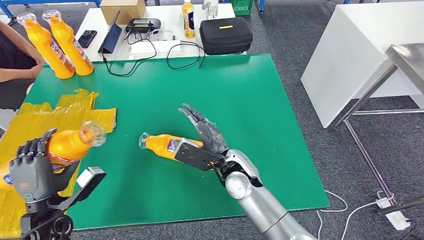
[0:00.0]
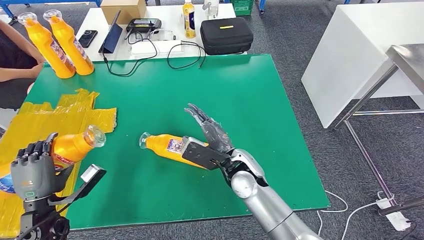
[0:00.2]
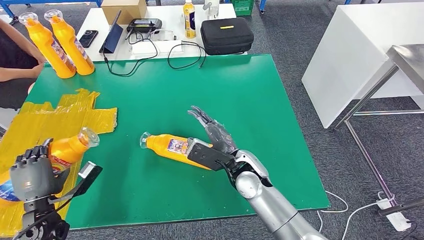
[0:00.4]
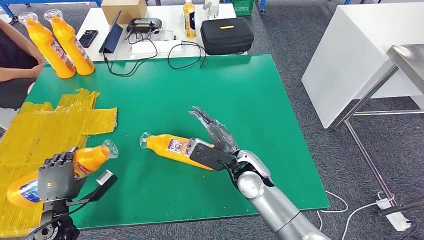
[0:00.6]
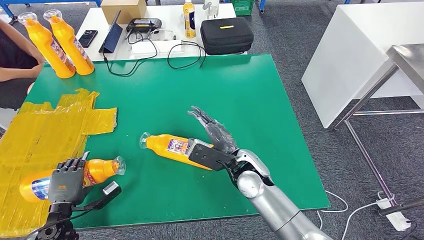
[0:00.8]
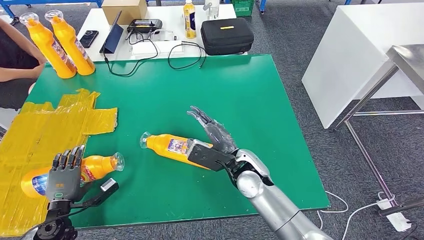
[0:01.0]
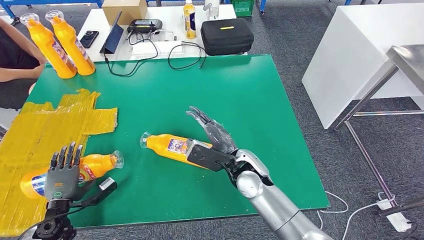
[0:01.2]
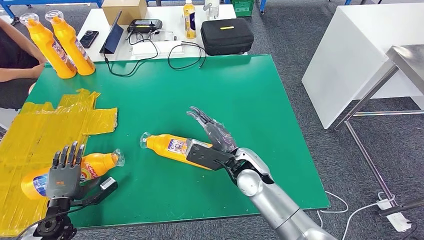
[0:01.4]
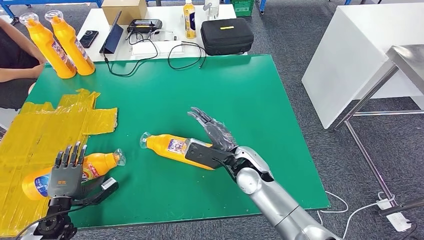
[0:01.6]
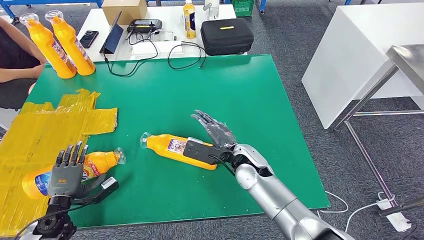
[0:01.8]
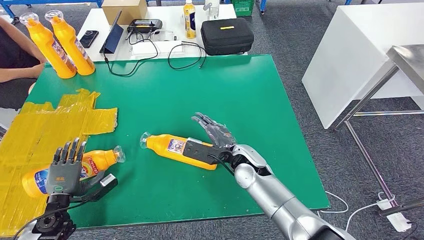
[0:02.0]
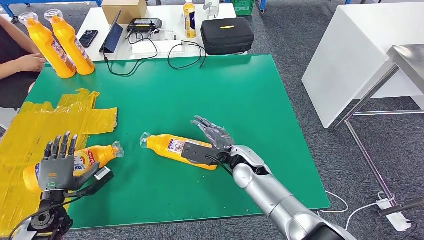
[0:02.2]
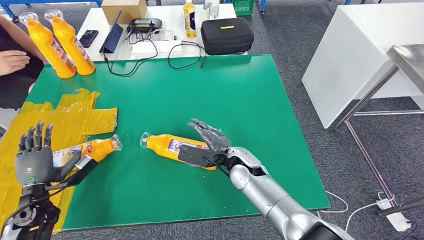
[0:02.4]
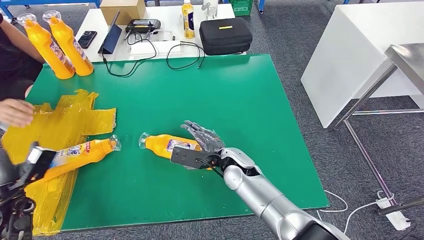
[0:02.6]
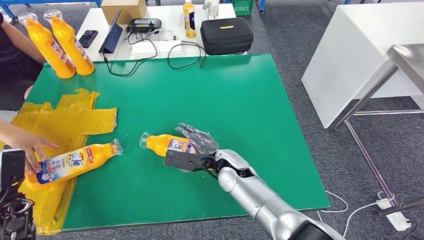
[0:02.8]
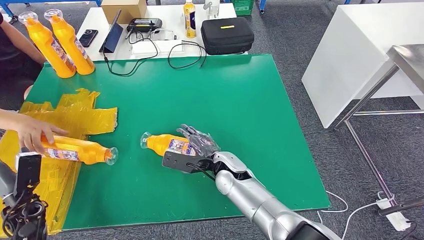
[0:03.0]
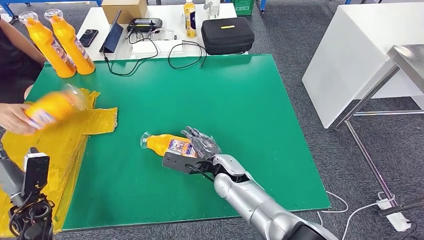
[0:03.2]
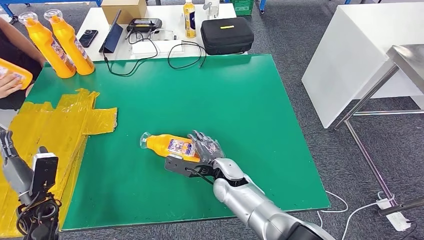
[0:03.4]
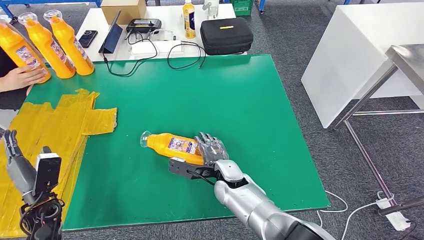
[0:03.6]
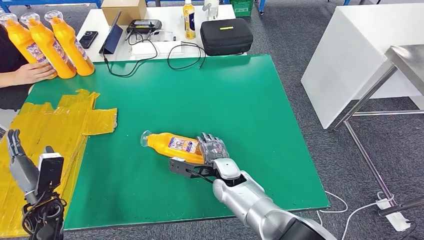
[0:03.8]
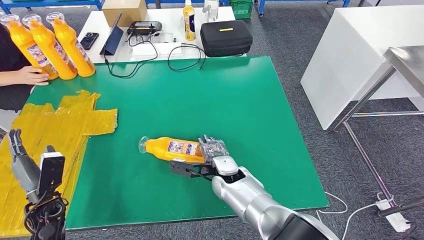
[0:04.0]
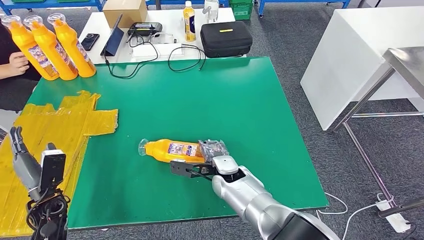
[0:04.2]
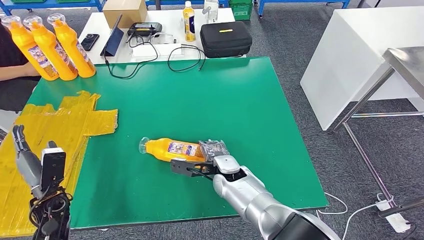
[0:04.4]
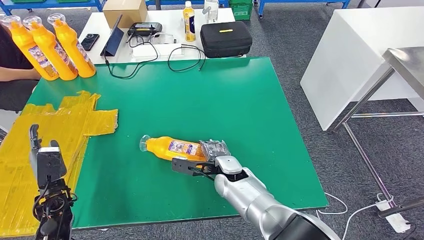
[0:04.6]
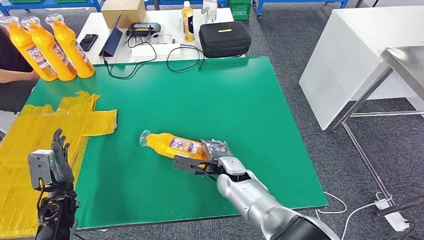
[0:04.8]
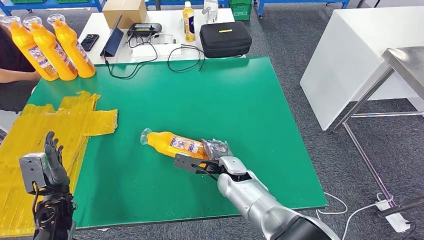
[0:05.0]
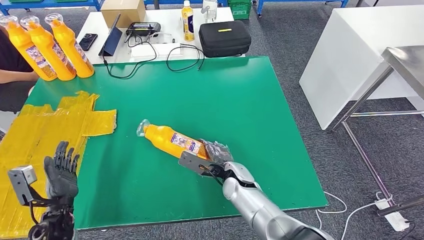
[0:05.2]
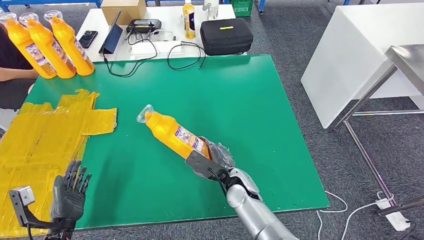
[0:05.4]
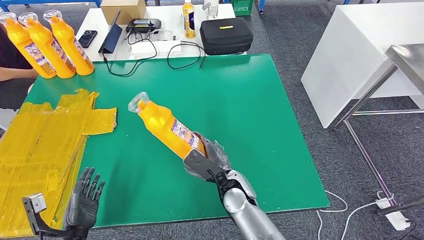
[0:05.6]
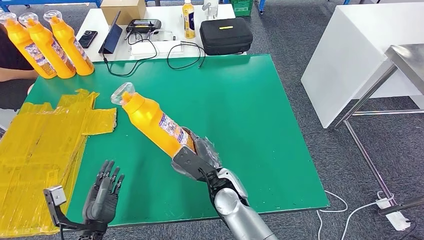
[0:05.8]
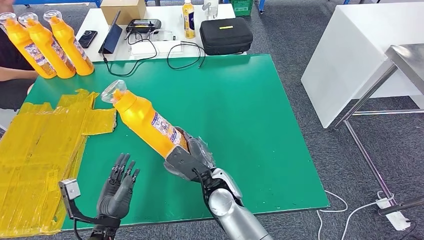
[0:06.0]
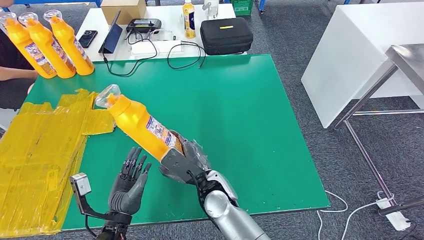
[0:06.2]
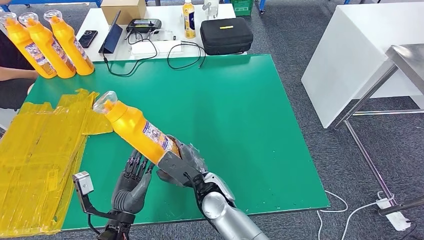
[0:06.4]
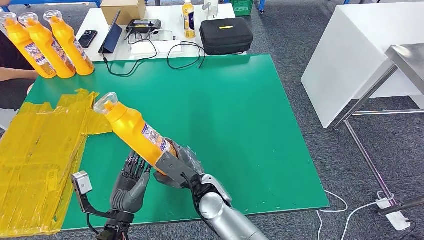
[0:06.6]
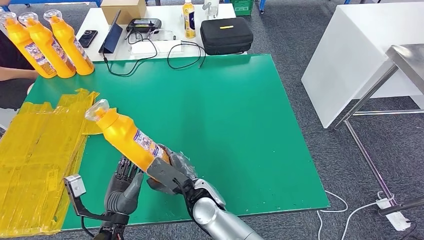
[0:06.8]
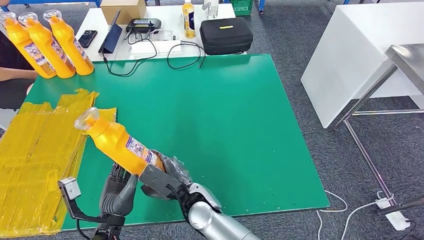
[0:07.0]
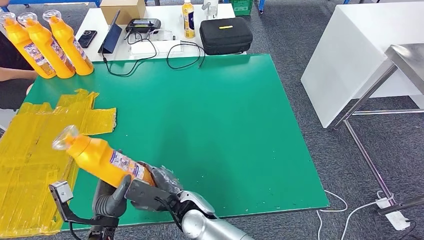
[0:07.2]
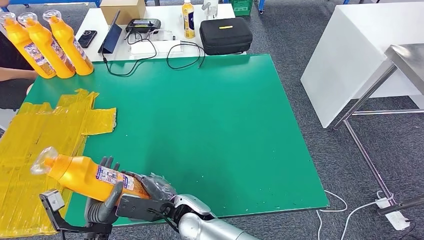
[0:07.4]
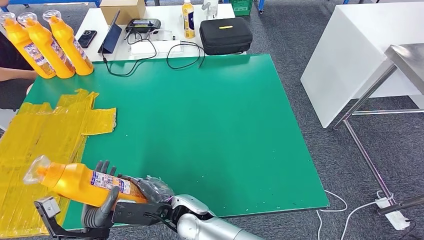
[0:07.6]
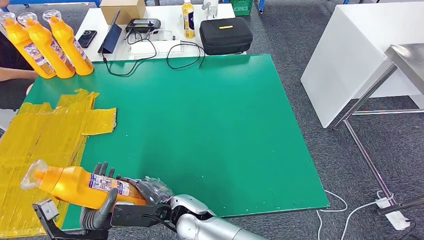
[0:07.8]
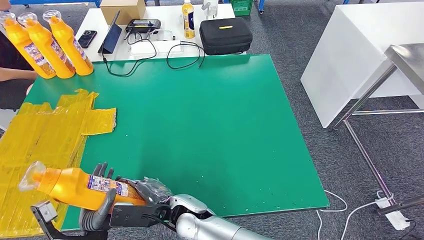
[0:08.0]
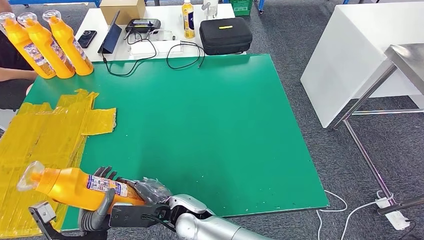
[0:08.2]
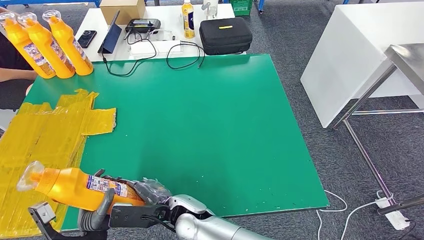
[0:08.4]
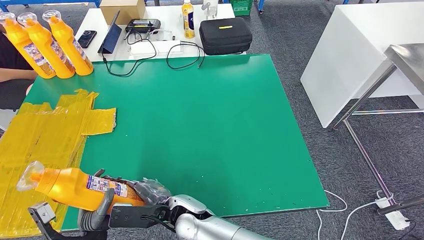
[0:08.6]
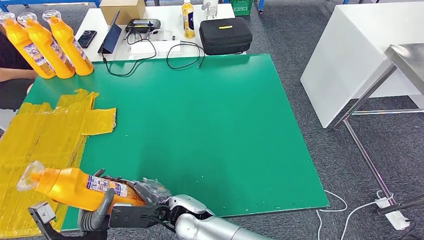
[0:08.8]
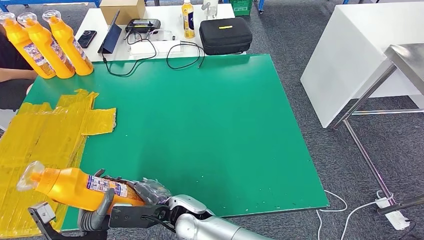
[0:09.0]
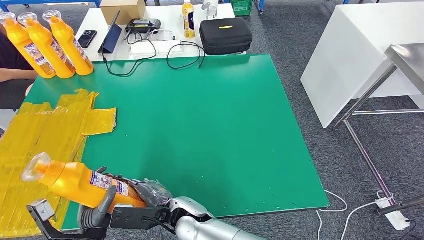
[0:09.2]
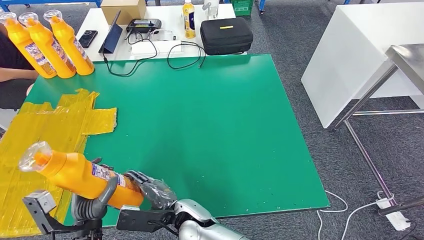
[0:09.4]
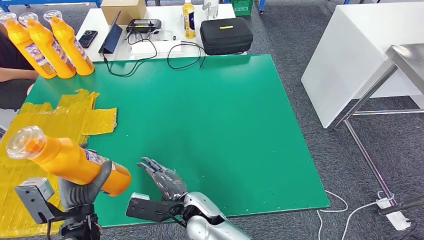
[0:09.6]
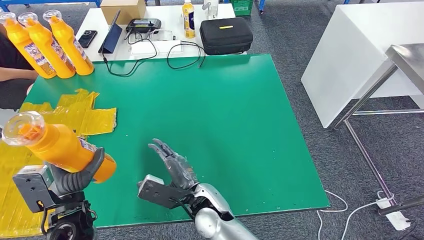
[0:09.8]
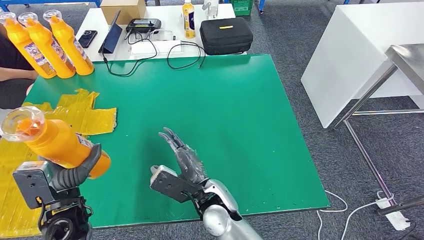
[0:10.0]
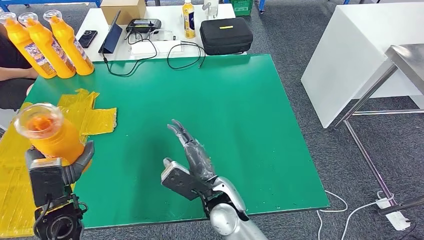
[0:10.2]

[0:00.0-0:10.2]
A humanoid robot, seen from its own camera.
Step, 0:00.0 to 0:03.0: Flip the fast-moving consumer goods bottle to the front side.
Step, 0:05.0 to 0:07.6: Pick up the fast-moving consumer goods bottle from the table.
0:00.0 to 0:01.4: The left hand shifts some 10 cm downward and to the left.
0:01.4 to 0:03.0: The right hand shifts by some 5 cm.
0:05.8 to 0:07.2: The right hand heads to the left and backward, covering roughly 10 cm.
0:07.2 to 0:08.8: The hands stay close to where they were, moving slightly.
0:08.8 to 0:10.2: The left hand moves forward, upward and to the left, roughly 15 cm; the right hand shifts approximately 10 cm to the right and upward.

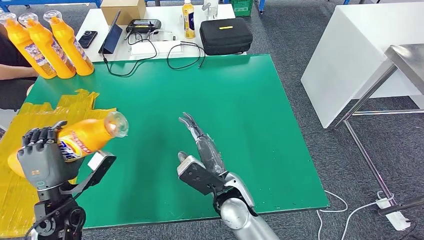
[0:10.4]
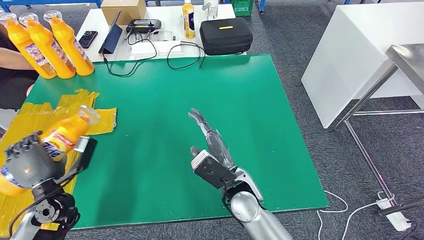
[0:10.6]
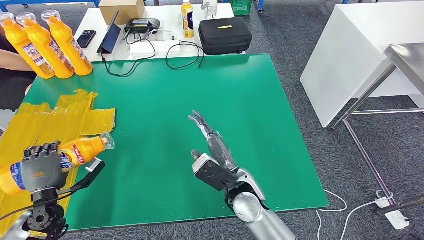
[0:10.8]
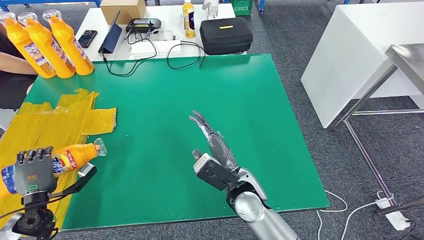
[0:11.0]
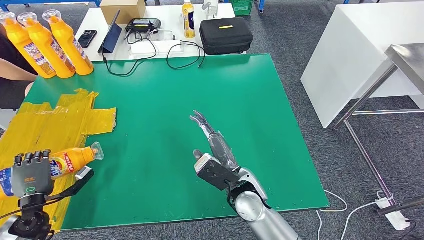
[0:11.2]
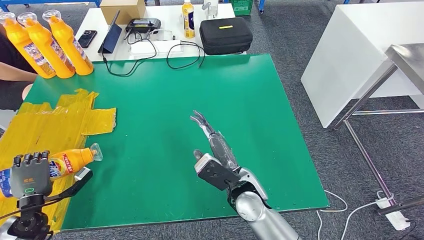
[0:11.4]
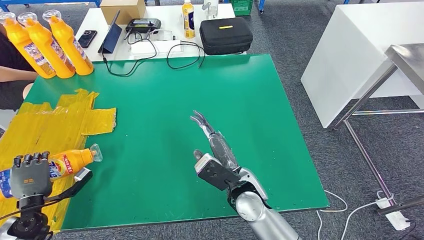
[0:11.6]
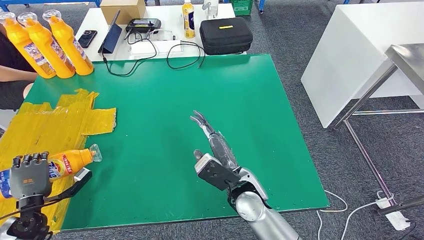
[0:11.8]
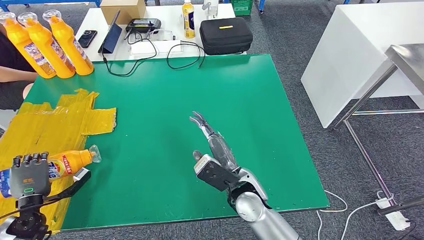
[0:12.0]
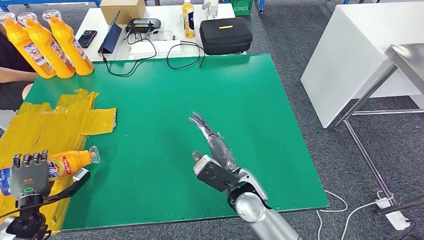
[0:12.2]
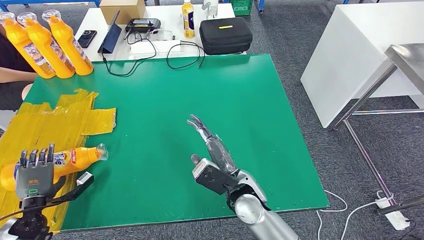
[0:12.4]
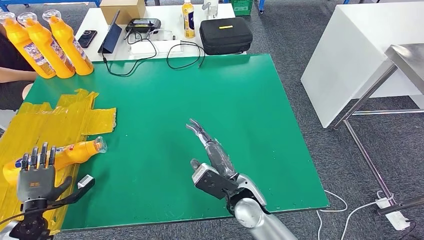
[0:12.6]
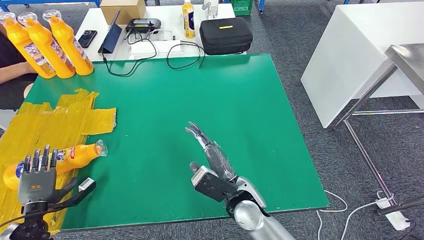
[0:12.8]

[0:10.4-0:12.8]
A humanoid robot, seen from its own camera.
Step, 0:10.4 to 0:12.8: Flip the fast-moving consumer goods bottle to the front side.
0:10.4 to 0:11.6: The left hand heads to the left and downward, covering some 15 cm.
0:11.6 to 0:12.8: The hands move only a little.
